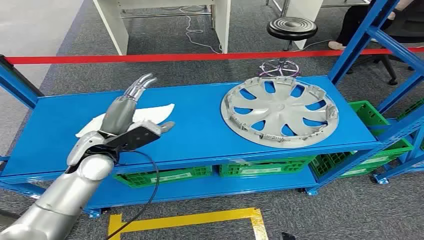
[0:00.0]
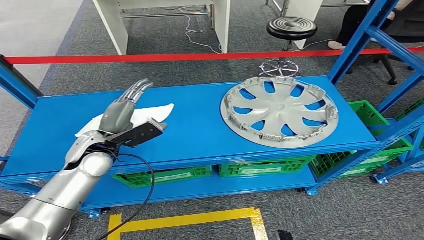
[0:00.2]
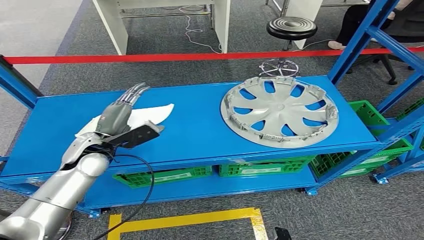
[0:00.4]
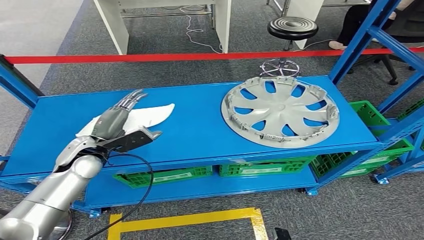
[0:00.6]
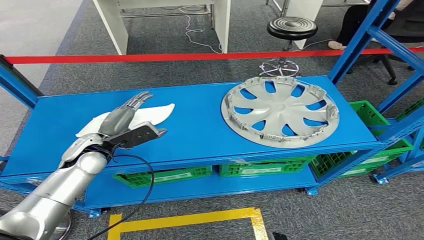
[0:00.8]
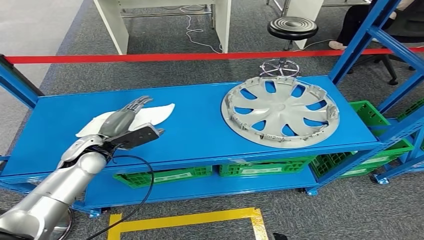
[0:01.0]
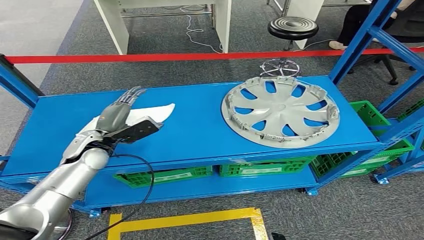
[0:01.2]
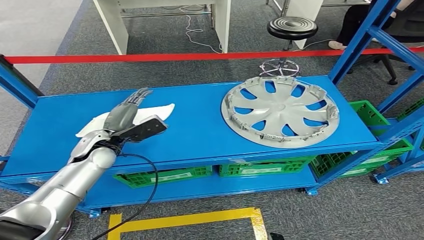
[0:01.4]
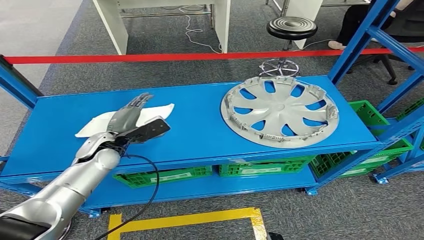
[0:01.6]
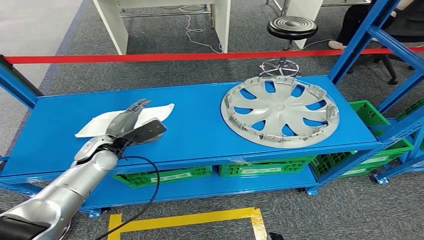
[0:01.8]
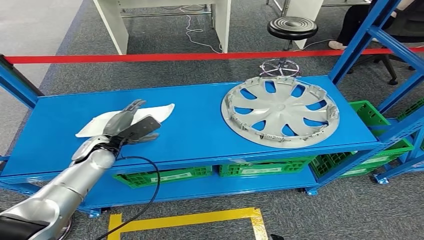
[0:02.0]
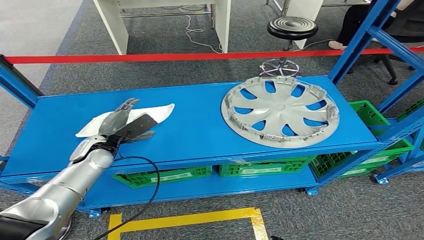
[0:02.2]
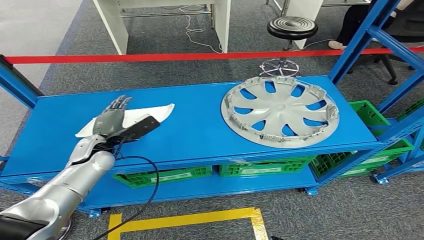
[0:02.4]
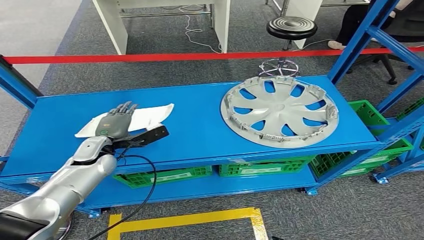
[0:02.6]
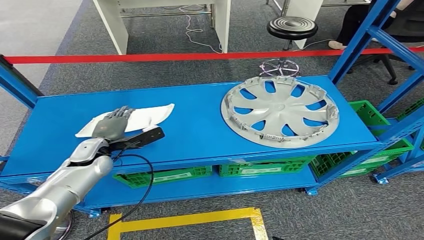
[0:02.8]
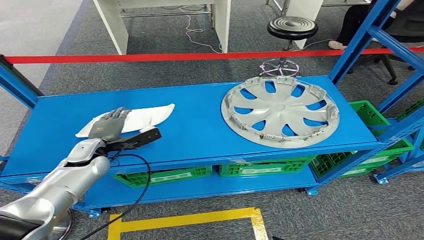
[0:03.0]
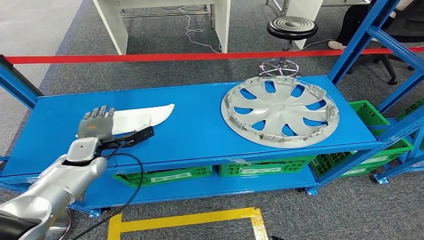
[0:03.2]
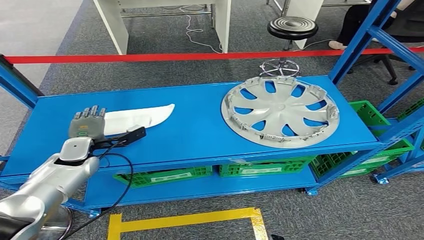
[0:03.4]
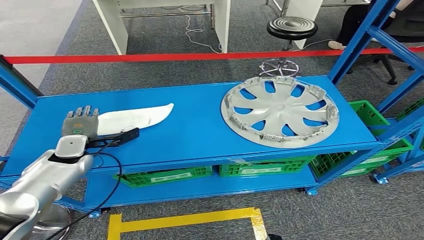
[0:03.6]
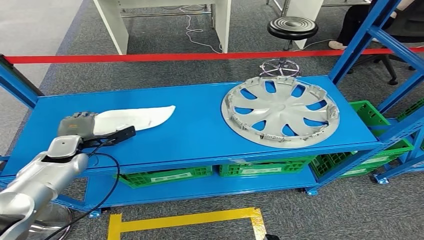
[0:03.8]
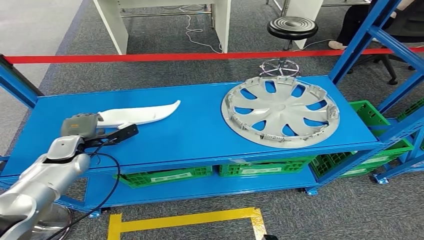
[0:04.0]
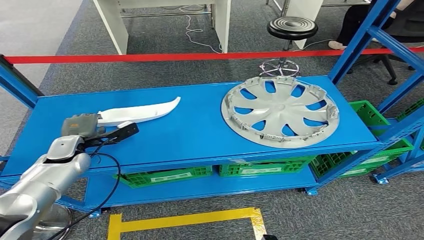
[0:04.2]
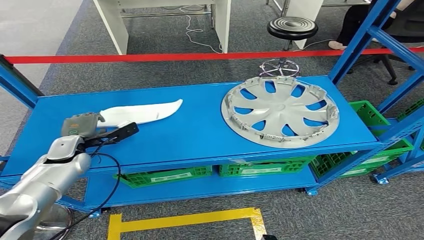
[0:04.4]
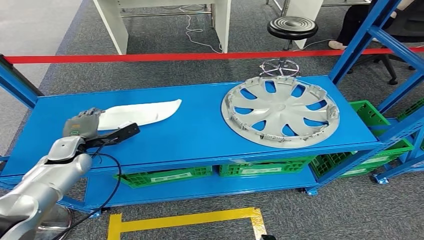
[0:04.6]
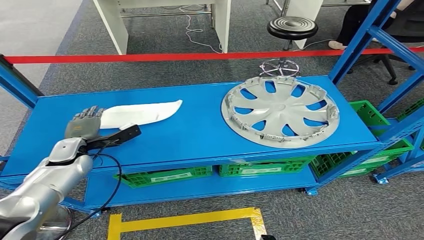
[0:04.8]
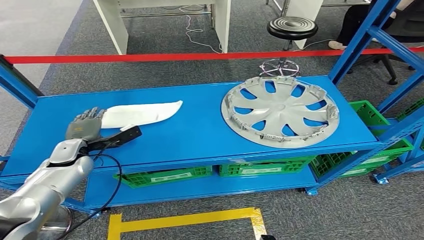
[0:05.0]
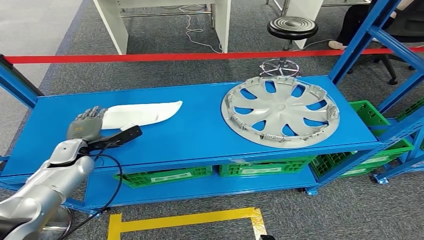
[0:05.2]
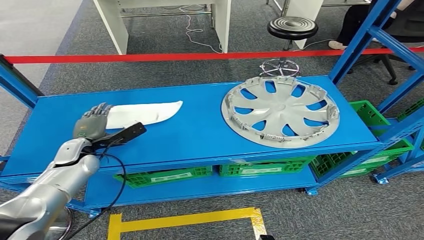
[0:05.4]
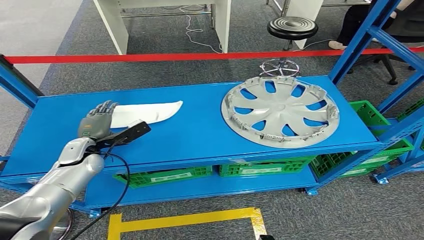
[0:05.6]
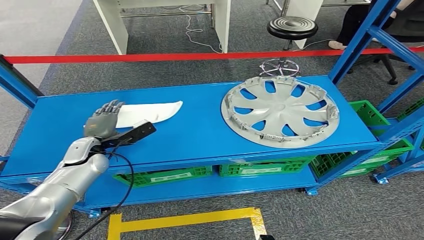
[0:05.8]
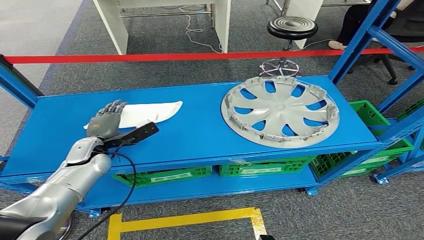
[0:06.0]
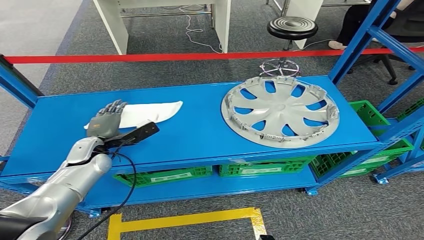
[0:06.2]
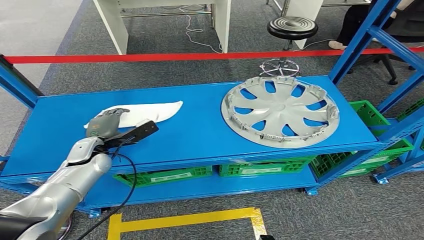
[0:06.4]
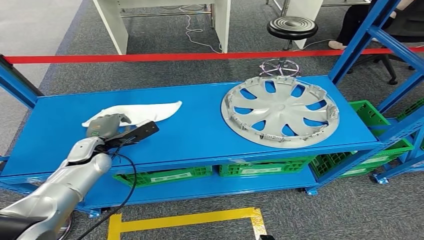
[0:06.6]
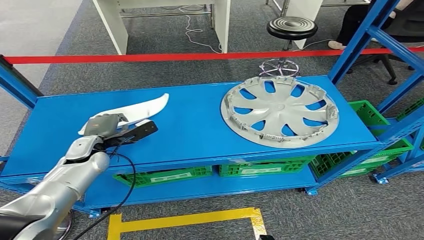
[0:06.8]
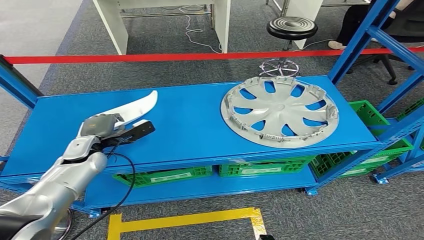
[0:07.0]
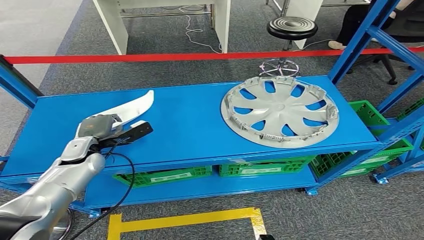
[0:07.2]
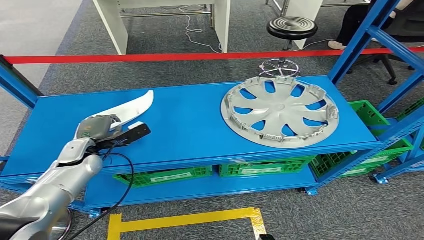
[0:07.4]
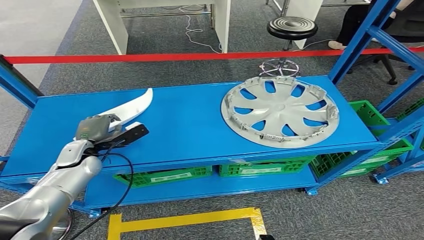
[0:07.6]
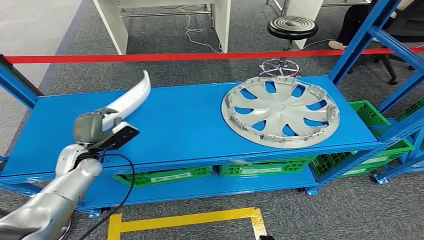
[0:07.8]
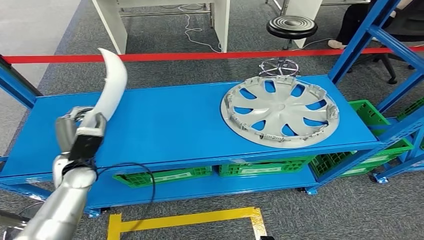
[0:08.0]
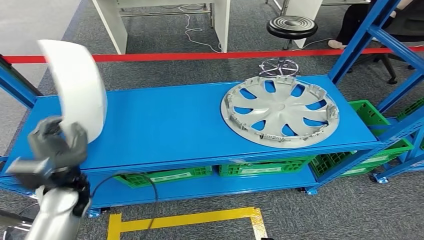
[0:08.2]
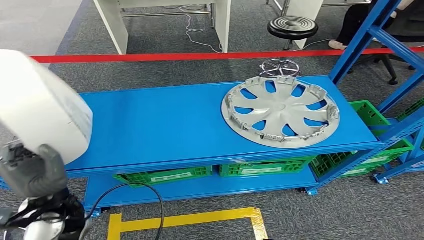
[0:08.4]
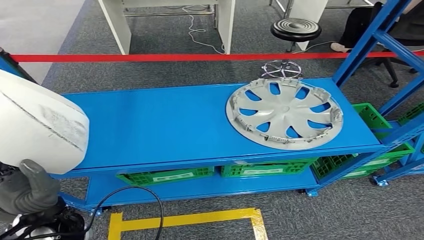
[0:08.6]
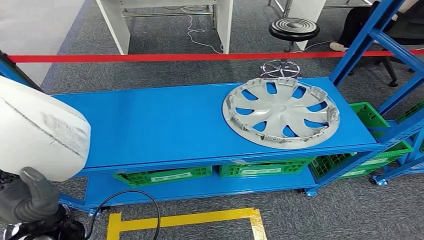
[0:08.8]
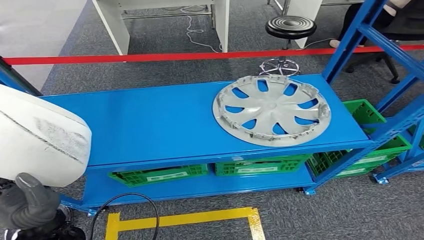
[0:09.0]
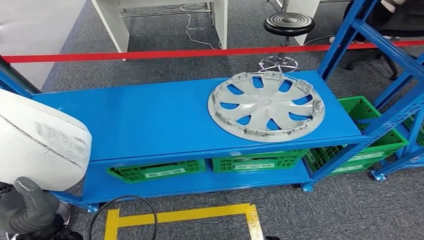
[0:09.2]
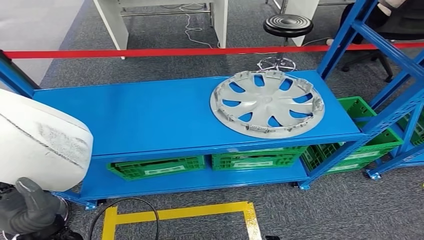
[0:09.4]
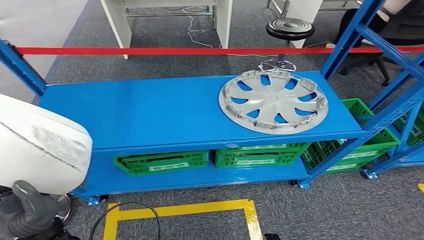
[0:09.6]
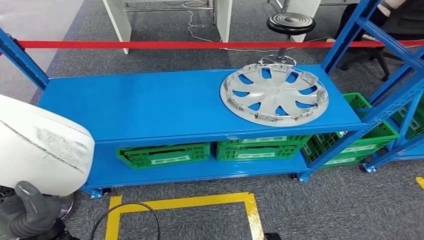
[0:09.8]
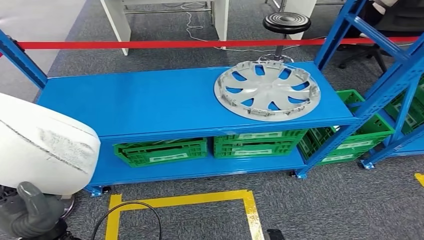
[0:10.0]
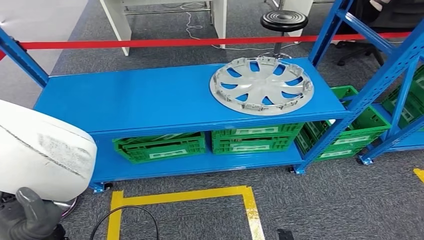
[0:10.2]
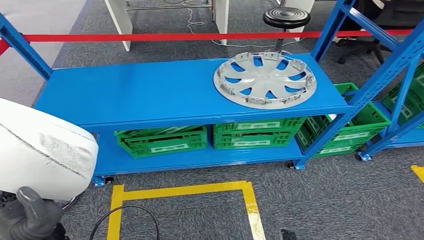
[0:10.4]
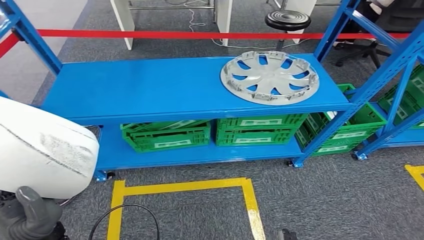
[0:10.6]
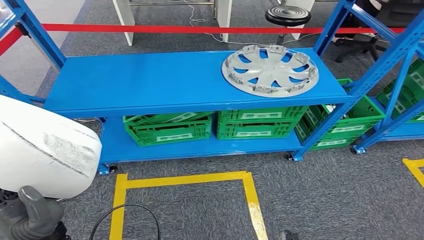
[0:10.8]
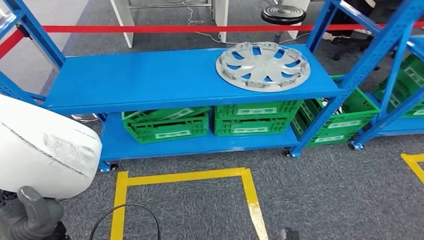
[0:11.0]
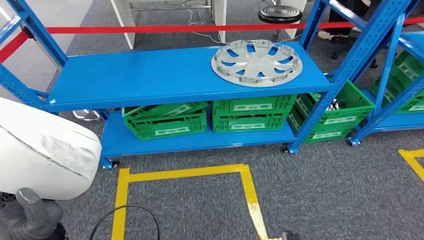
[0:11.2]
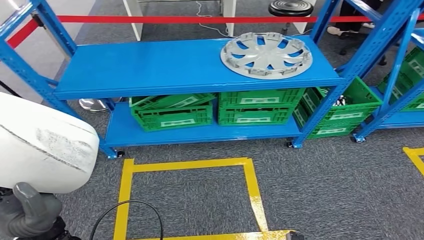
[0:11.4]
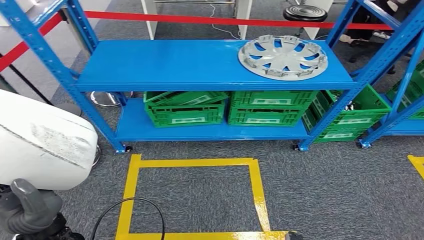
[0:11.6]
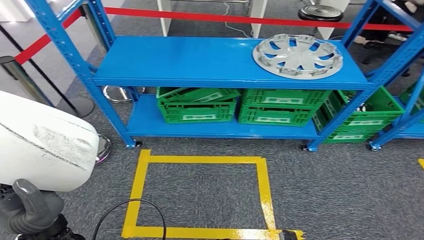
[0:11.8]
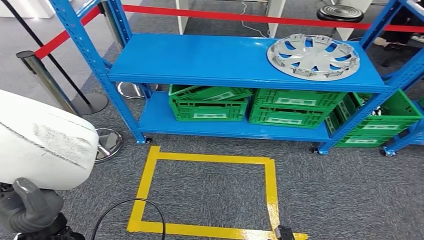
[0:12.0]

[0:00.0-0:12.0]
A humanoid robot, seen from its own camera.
Step, 0:00.0 to 0:09.0: Pick up the small component from the shelf.
0:04.4 to 0:06.0: The left hand moves to the right, about 5 cm.
0:06.0 to 0:07.6: The hands make only small movements.

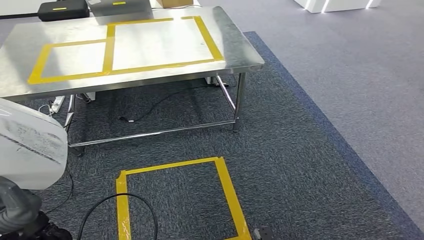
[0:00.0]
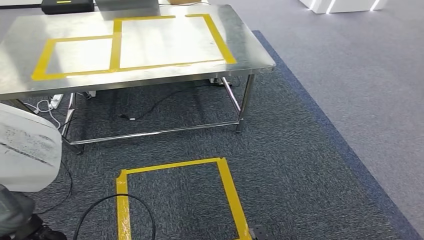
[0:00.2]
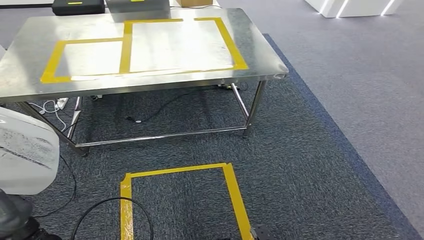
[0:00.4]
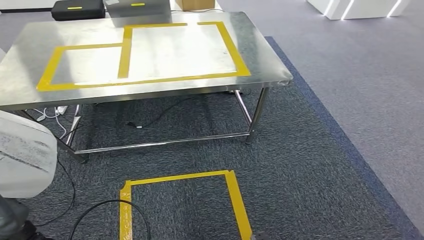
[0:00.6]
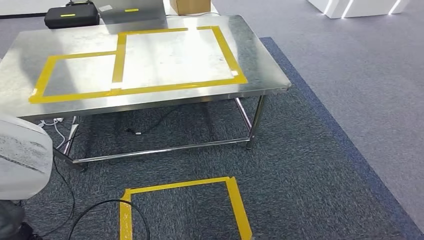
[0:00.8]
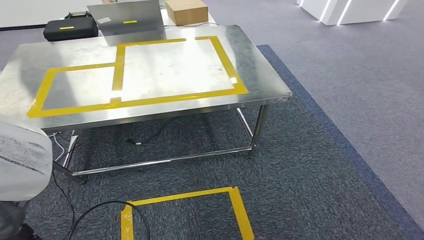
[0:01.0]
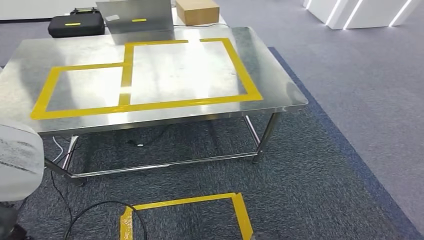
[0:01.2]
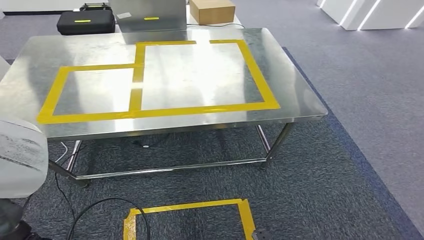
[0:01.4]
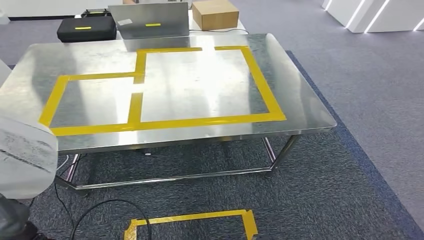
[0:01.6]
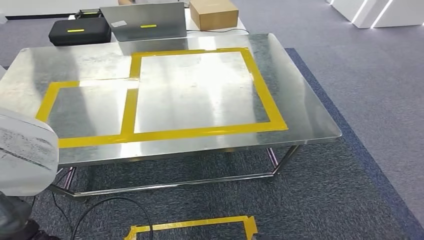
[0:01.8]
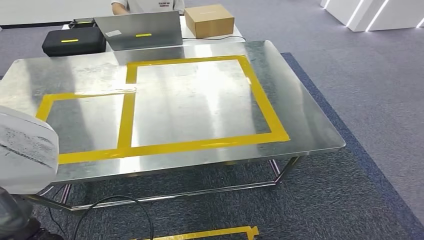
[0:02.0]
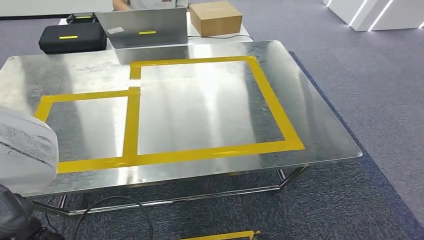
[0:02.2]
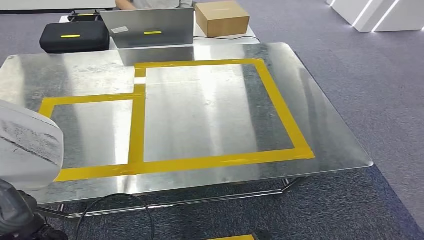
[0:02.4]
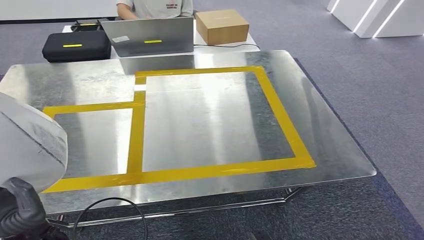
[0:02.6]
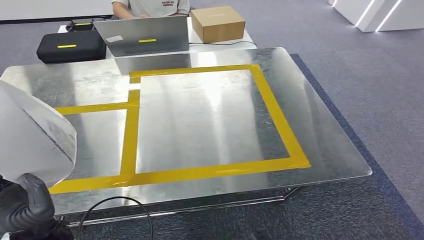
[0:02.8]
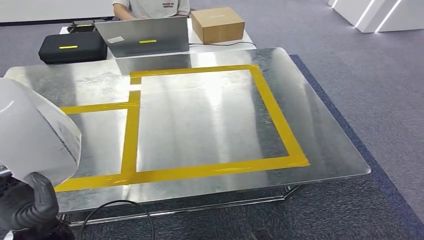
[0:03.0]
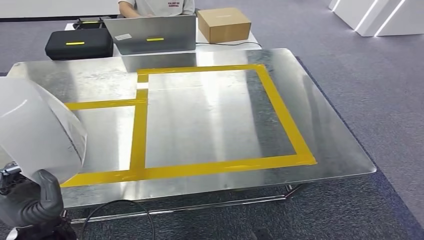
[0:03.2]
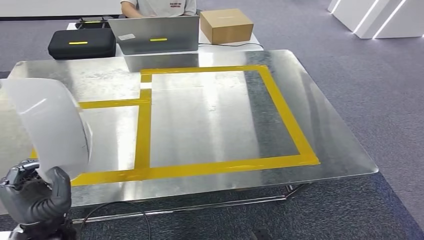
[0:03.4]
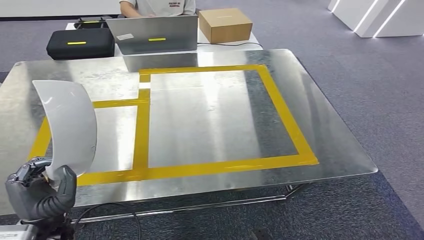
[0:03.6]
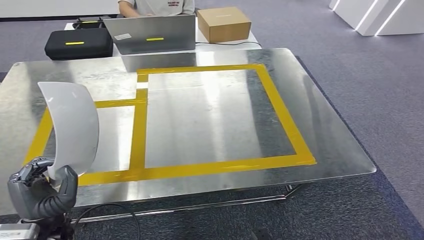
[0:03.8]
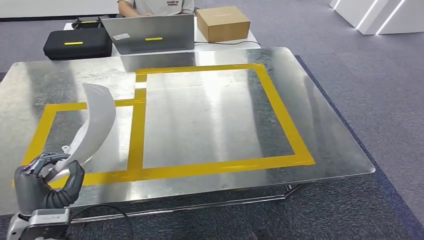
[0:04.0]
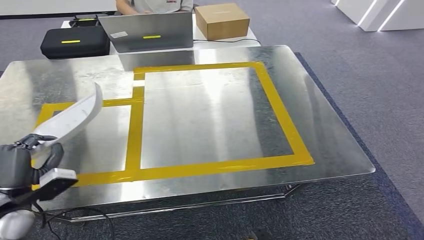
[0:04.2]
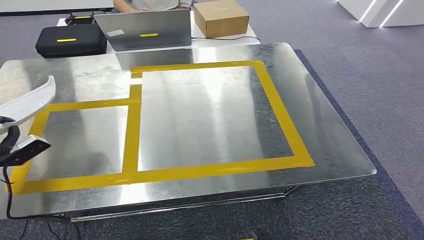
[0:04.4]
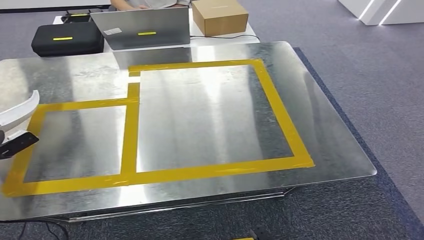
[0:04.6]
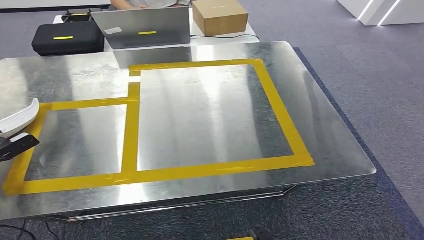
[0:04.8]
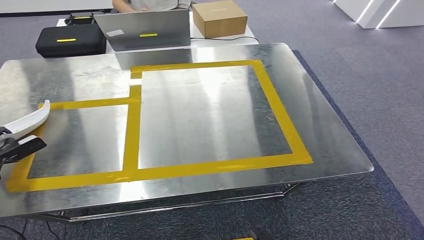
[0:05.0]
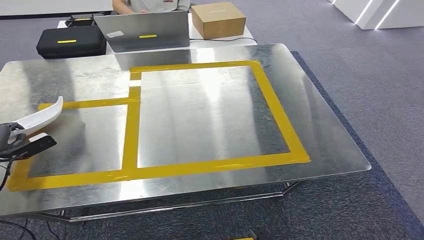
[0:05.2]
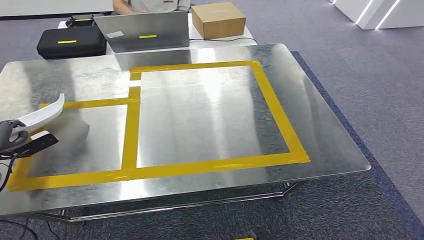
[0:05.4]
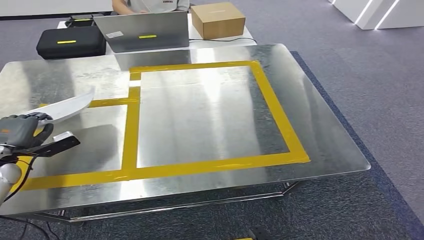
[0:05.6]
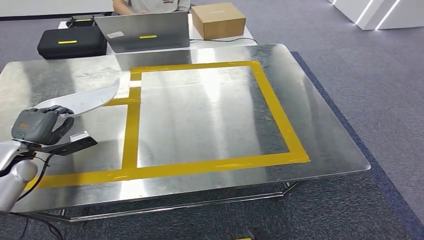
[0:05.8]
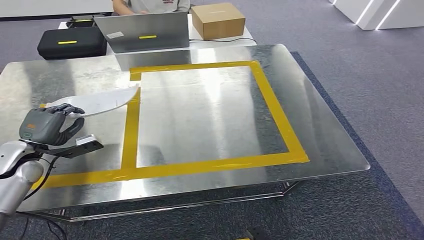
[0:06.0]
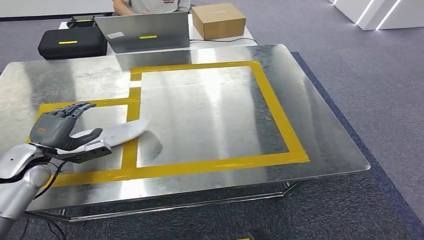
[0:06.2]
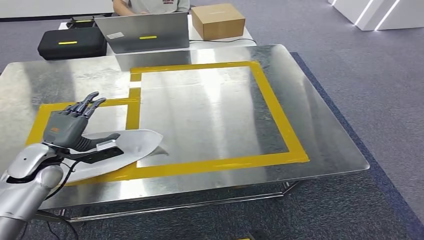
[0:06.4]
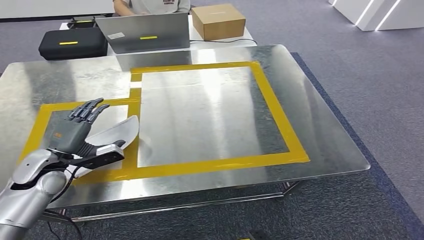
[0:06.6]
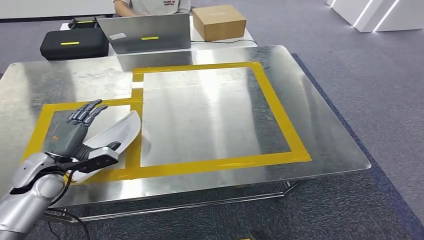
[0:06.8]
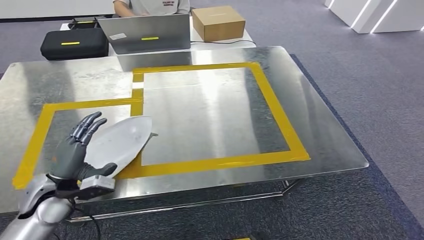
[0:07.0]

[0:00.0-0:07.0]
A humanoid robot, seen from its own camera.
Step, 0:00.0 to 0:03.0: Move the small component to the workbench.
0:04.2 to 0:05.6: The left hand is displaced forward and to the left by approximately 15 cm.
